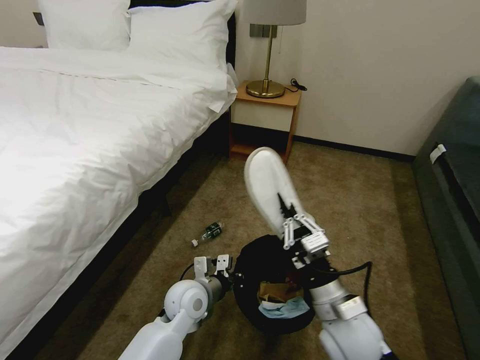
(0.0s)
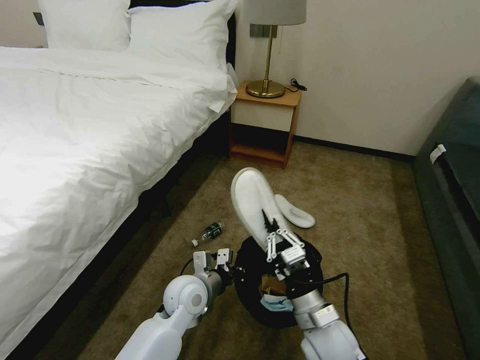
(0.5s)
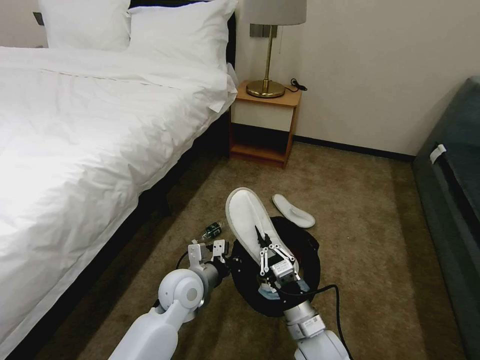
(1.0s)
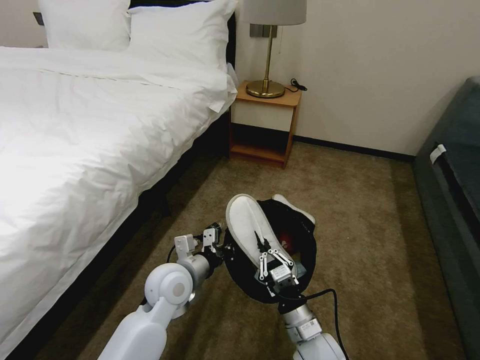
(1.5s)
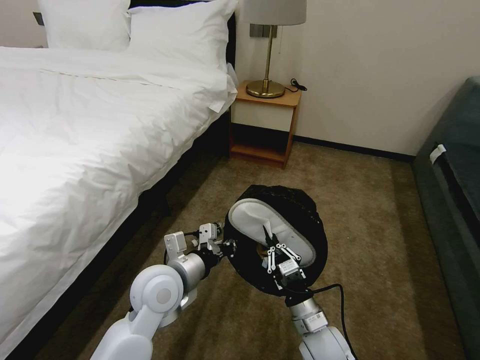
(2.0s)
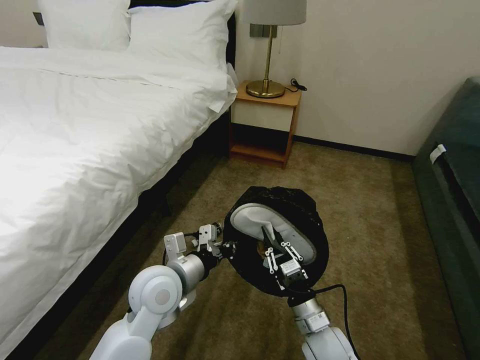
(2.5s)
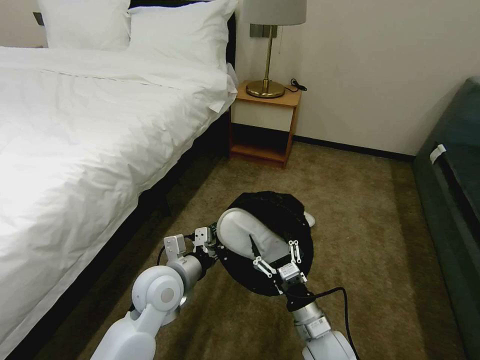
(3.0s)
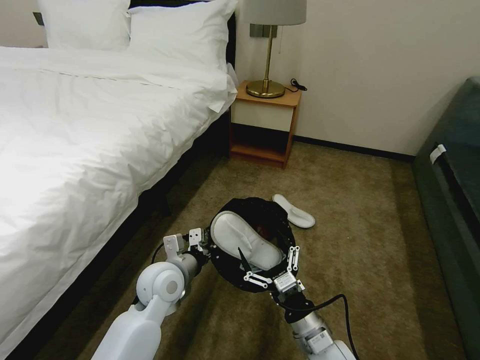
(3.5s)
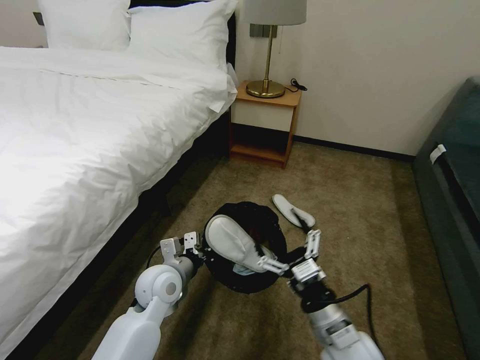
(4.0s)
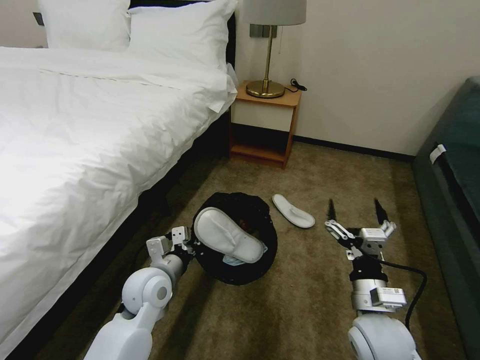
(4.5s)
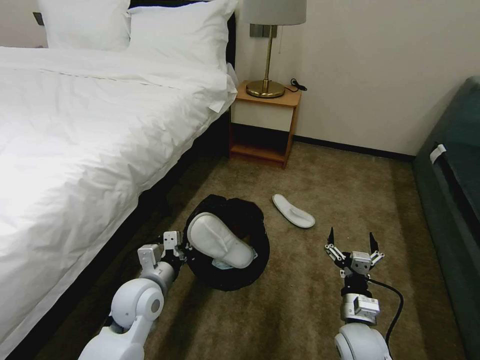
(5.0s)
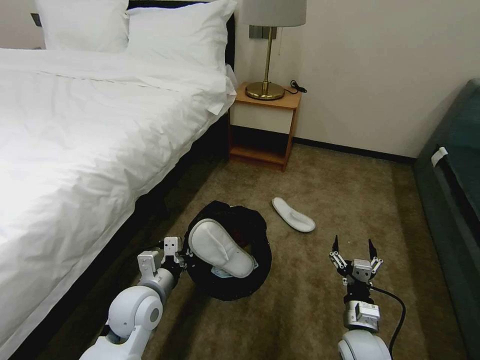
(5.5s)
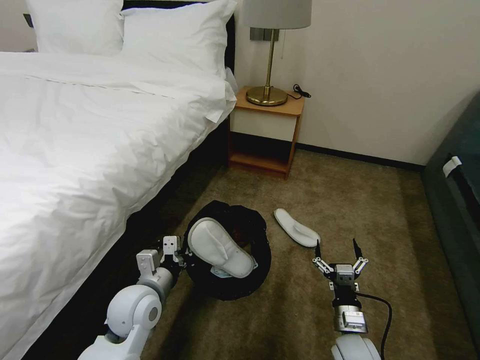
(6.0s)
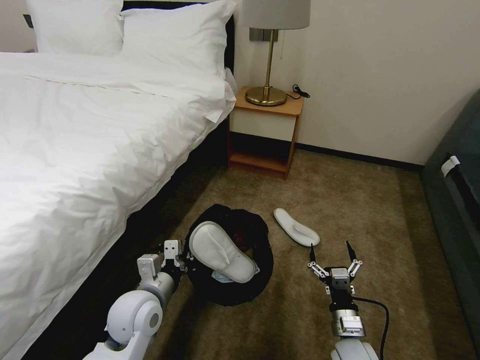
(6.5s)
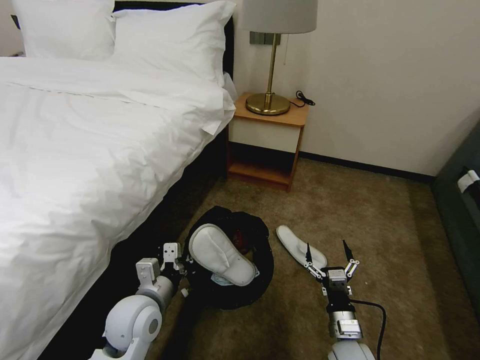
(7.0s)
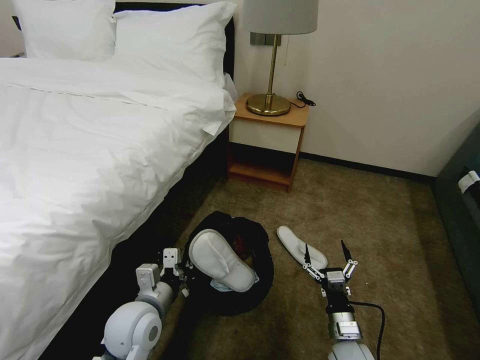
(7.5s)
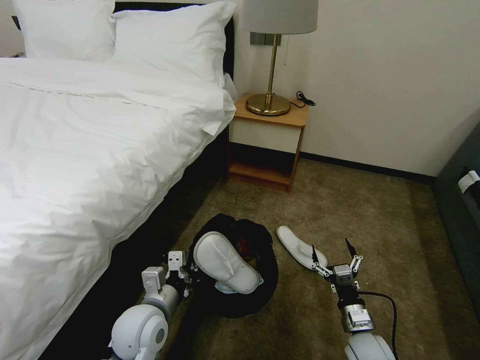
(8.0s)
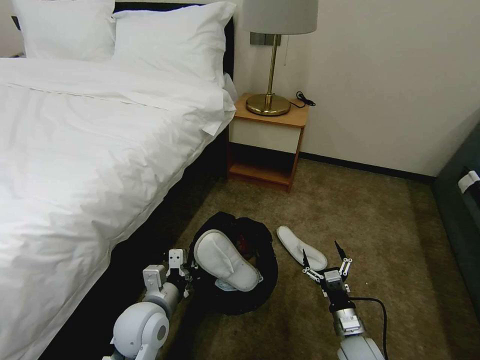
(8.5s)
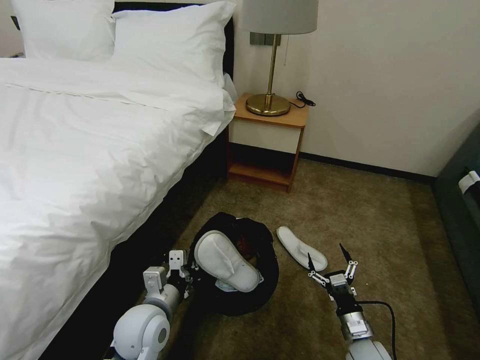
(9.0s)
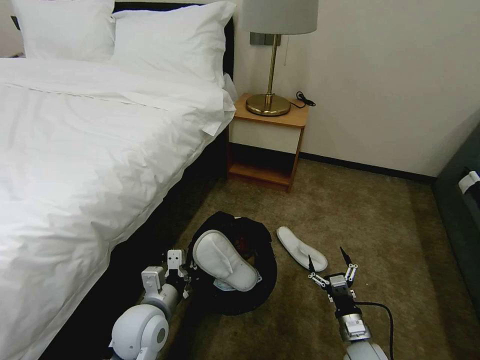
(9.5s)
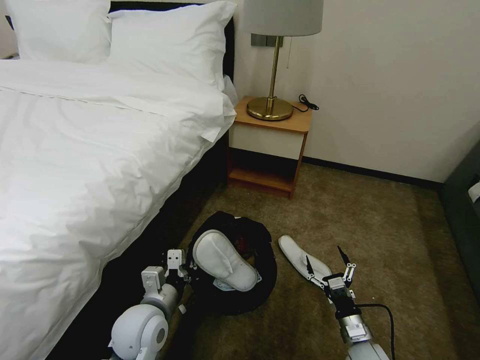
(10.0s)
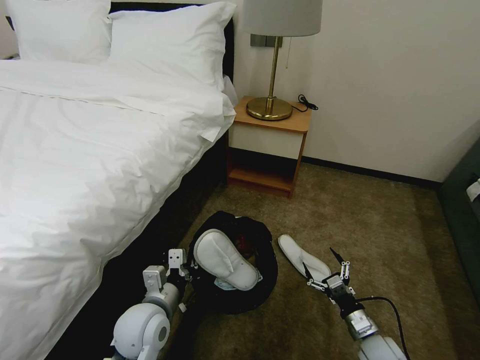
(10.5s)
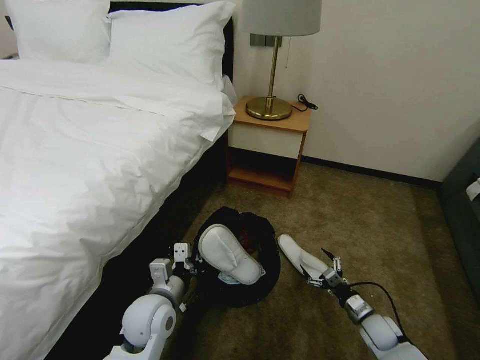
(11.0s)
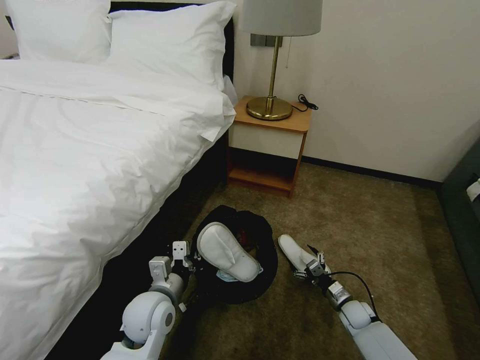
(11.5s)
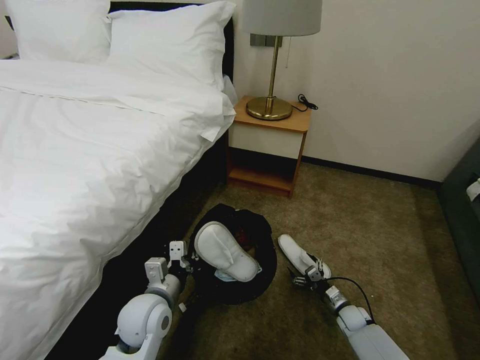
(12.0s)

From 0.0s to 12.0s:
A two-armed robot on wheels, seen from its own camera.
Task of the whole recording: Pick up the trash bin, then pick up the garbage on the floor and place it into the trash bin.
From 0.0s to 2.0s: The right gripper goes some 10 cm downward, while the left gripper shifts some 10 cm upward.
From 2.0s to 4.0s: The left gripper moves downward, roughly 5 cm; the right gripper moves upward, about 5 cm, and opens up.
From 4.0s to 6.0s: The right gripper is displaced downward and to the right by some 15 cm. Meanwhile the left gripper moves some 5 cm.
From 8.0s to 10.0s: The grippers stay close to where they were, moving slightly.
From 10.0s to 12.0s: The right gripper moves forward, downward and to the right, roughly 15 cm.

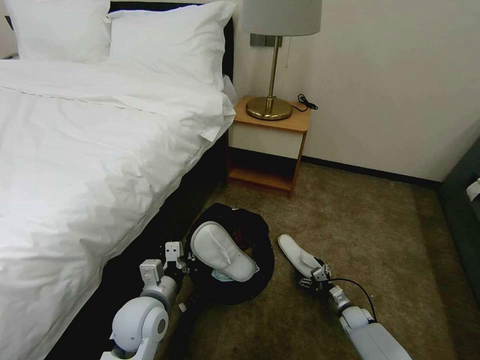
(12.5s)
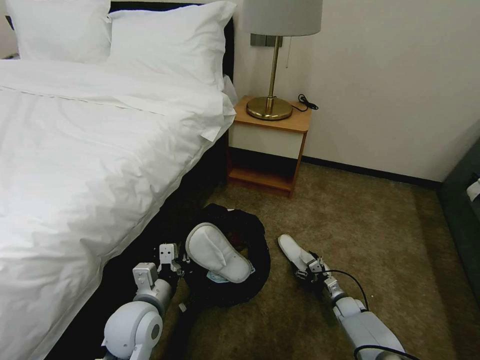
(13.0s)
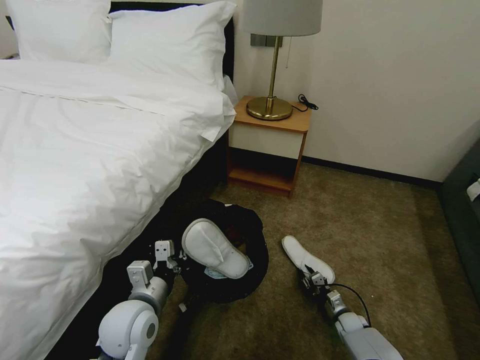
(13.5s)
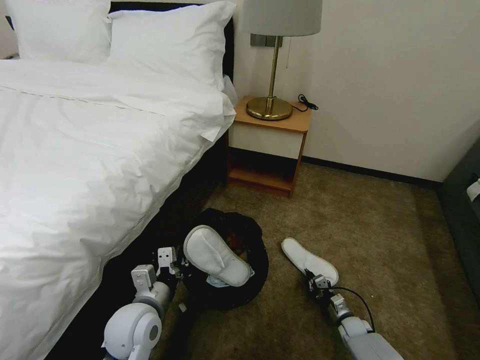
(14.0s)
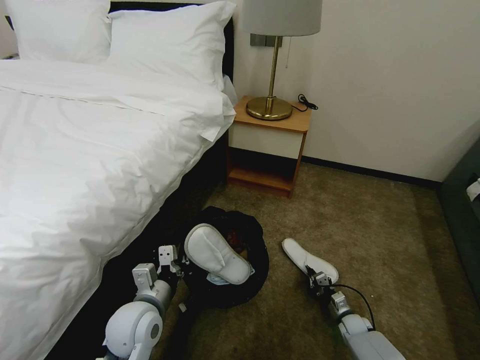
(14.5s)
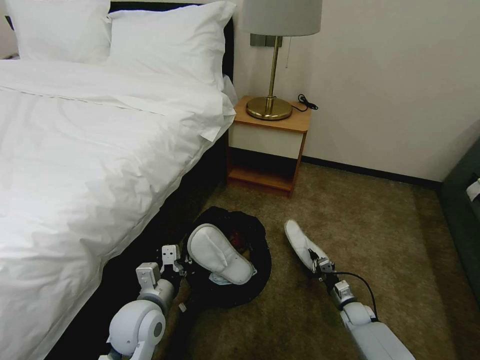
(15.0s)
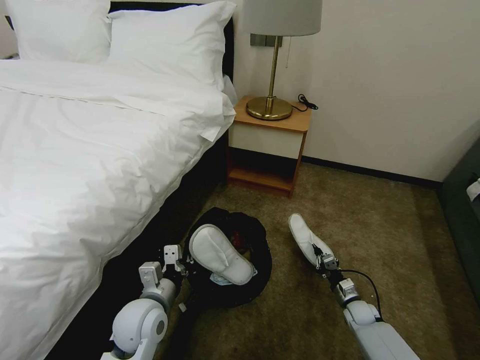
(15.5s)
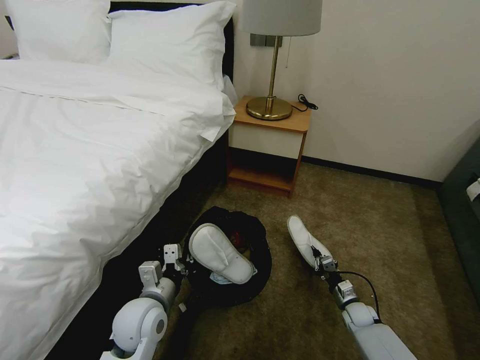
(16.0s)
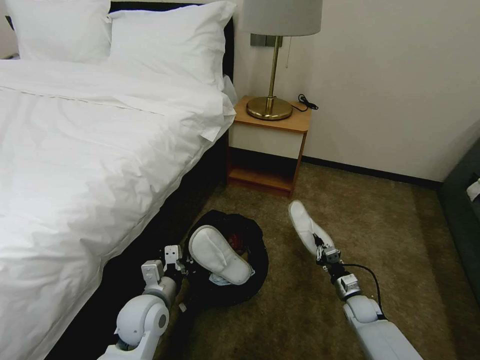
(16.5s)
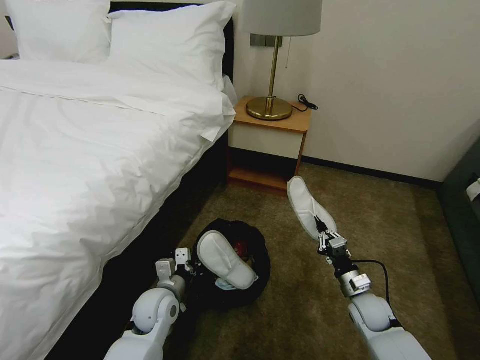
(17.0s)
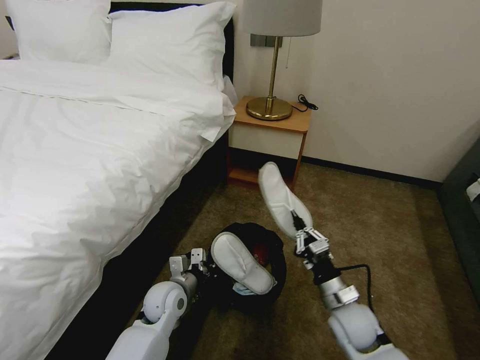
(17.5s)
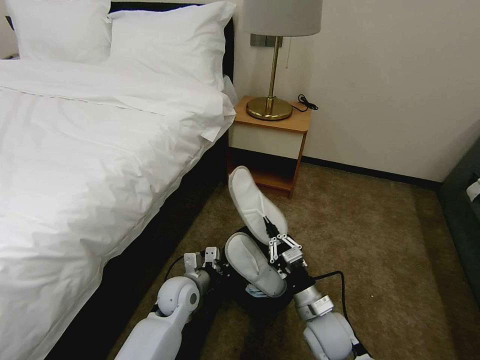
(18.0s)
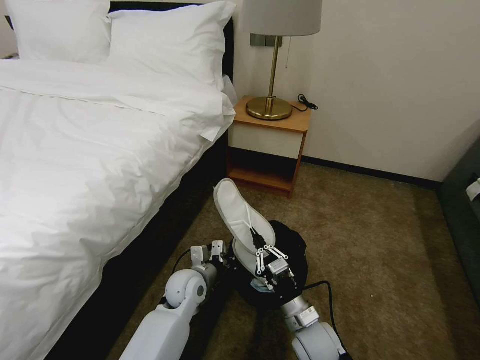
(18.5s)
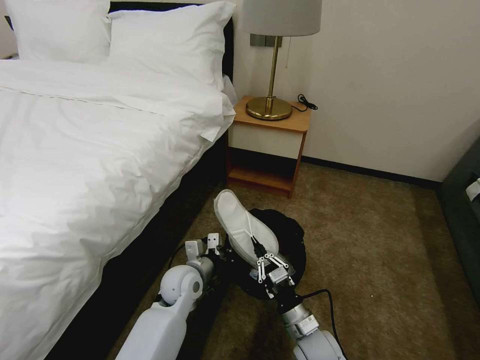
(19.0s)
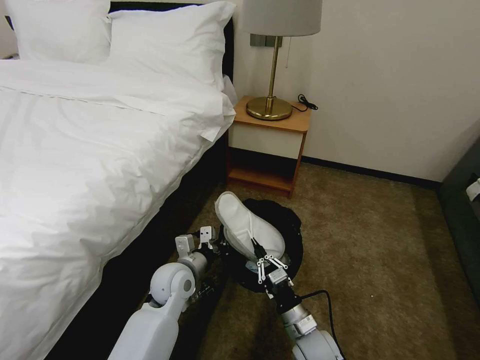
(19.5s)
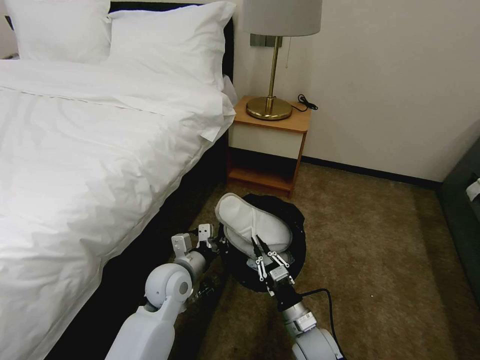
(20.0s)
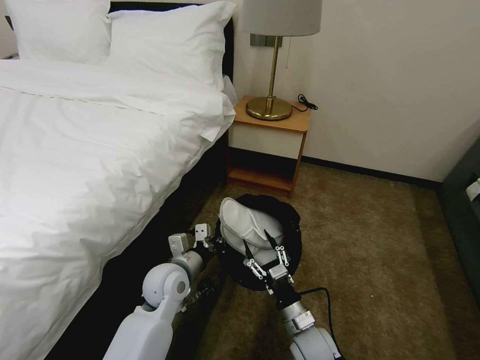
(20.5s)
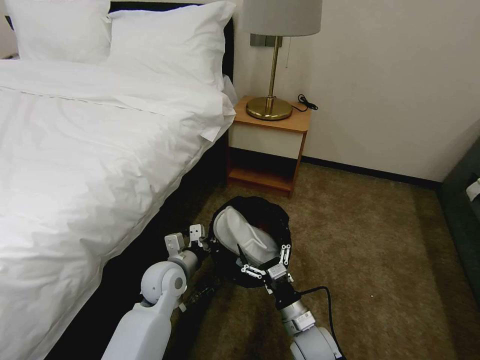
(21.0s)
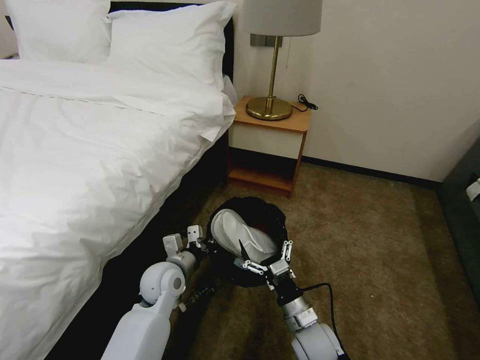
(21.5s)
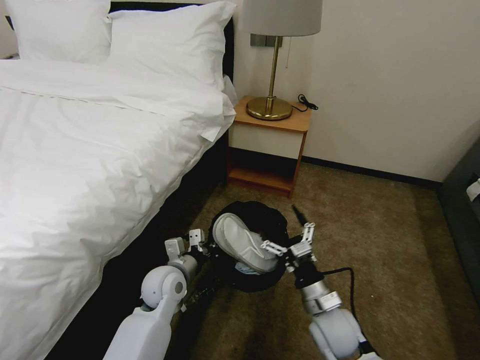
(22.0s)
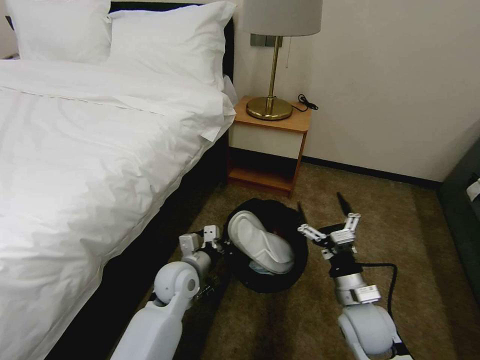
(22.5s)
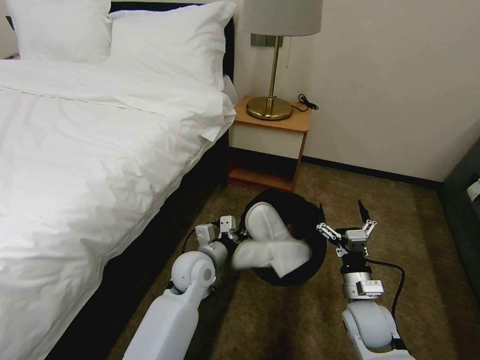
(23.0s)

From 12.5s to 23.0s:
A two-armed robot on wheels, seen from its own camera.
Task of the whole recording: Pick up the trash bin, then pick up the garbage on the floor and place it into the trash bin.
From 12.5s to 14.5s: The right gripper closes.
From 14.5s to 16.5s: The right gripper travels upward by about 10 cm.
From 16.5s to 19.0s: The left gripper heads forward and to the right, covering approximately 10 cm, while the right gripper travels to the left, backward and upward by some 25 cm.
From 19.0s to 21.0s: The right gripper opens up.
From 21.0s to 23.0s: The right gripper shifts approximately 15 cm to the right and upward. The left gripper is displaced to the right by some 5 cm.

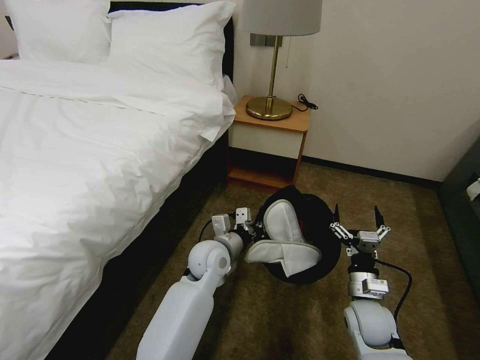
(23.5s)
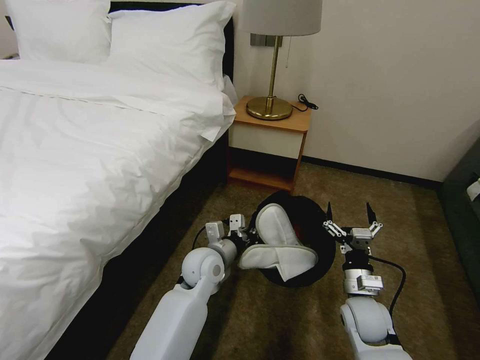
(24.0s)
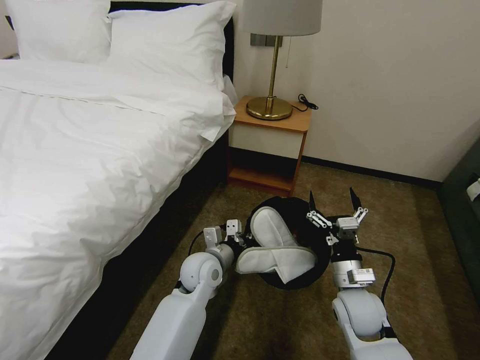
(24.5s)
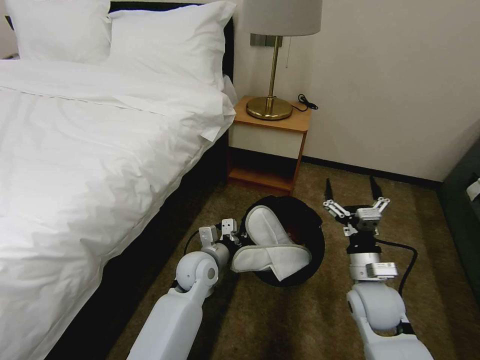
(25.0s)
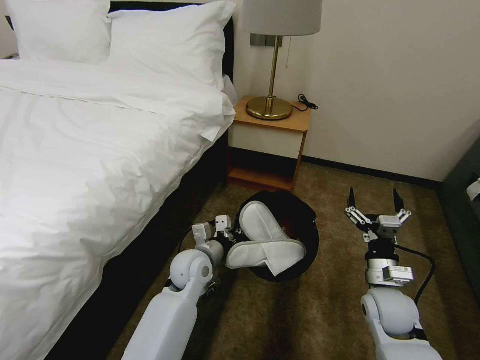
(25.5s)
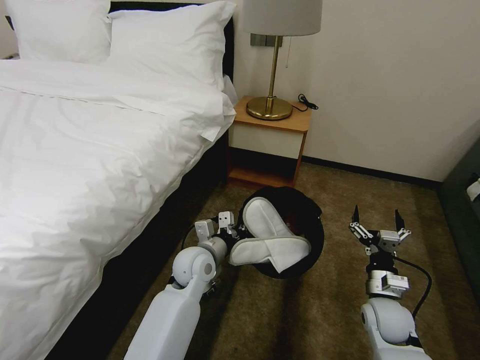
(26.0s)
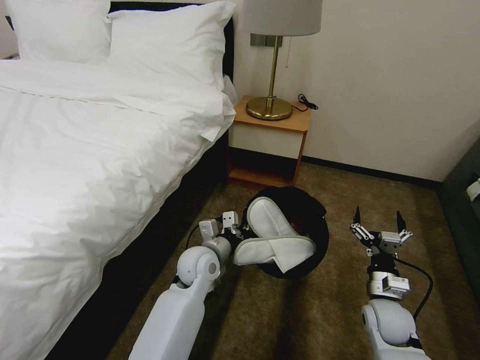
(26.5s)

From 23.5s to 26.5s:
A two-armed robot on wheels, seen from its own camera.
Task of the whole recording: Pick up the trash bin, then pick up the garbage on the floor and place it into the trash bin.
From 23.5s to 25.0s: The right gripper shifts approximately 5 cm upward.
From 25.0s to 26.5s: The right gripper goes roughly 10 cm downward and to the right.
